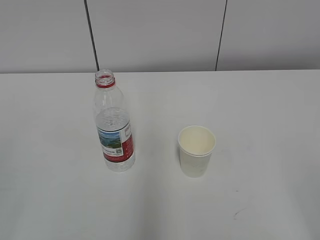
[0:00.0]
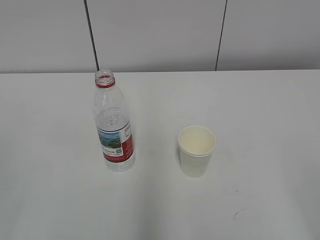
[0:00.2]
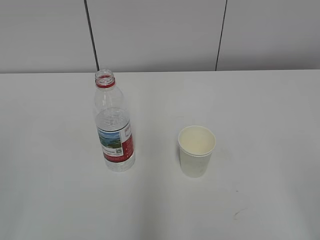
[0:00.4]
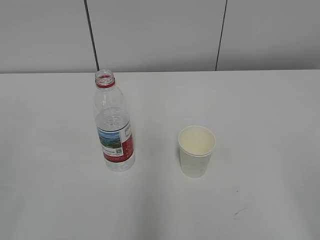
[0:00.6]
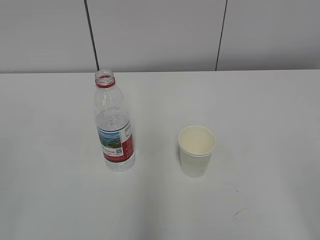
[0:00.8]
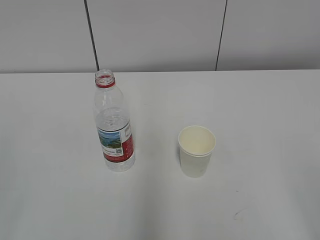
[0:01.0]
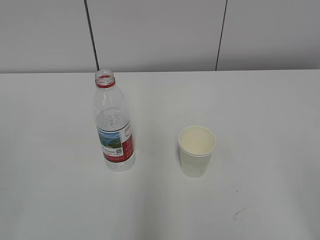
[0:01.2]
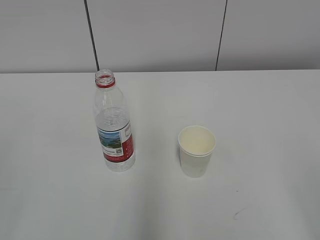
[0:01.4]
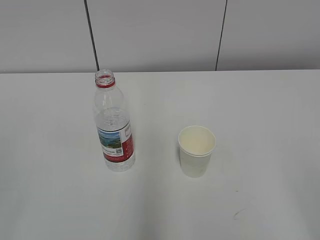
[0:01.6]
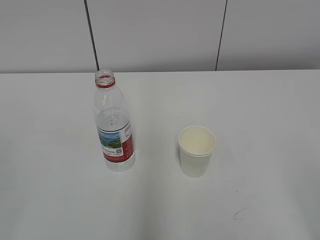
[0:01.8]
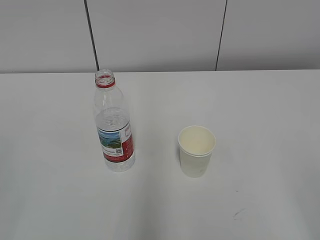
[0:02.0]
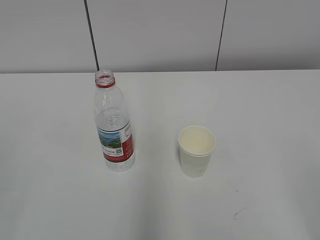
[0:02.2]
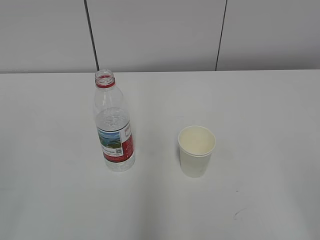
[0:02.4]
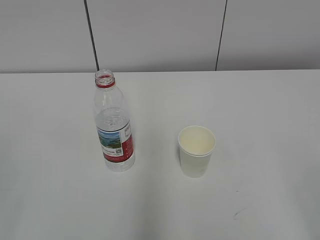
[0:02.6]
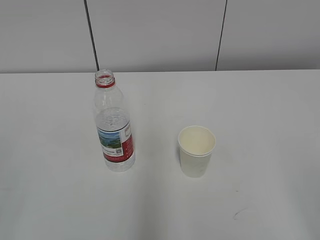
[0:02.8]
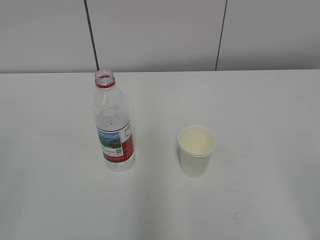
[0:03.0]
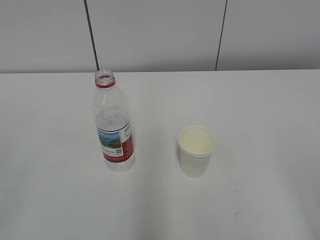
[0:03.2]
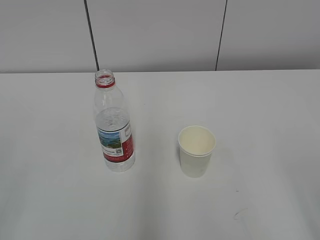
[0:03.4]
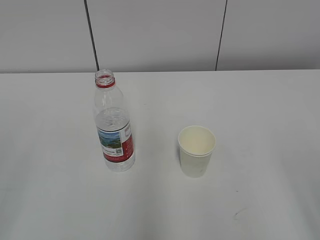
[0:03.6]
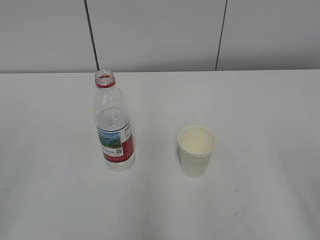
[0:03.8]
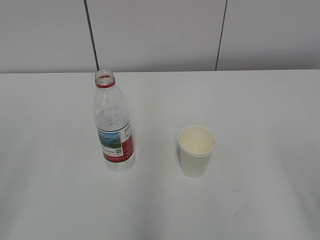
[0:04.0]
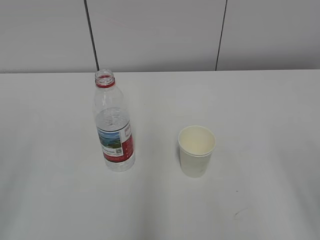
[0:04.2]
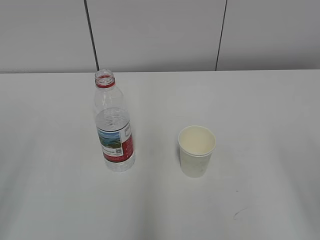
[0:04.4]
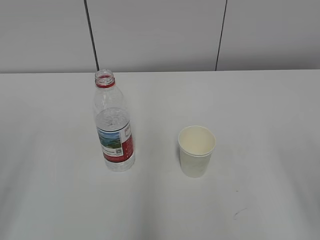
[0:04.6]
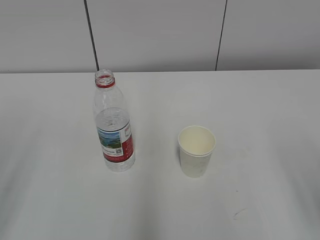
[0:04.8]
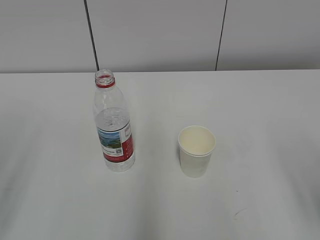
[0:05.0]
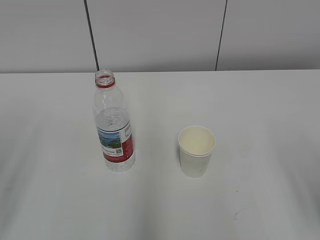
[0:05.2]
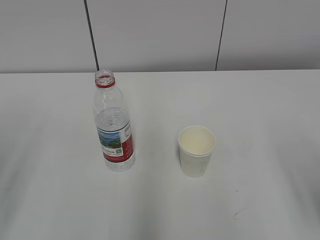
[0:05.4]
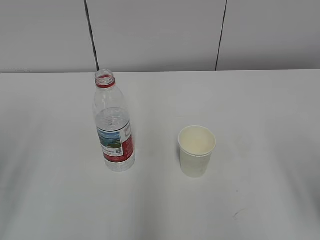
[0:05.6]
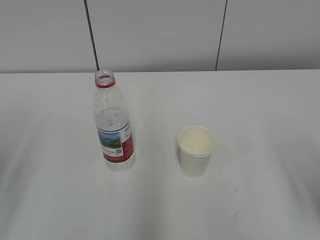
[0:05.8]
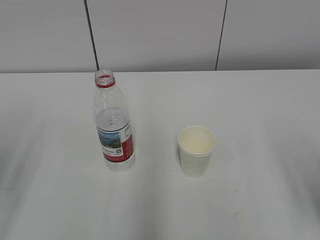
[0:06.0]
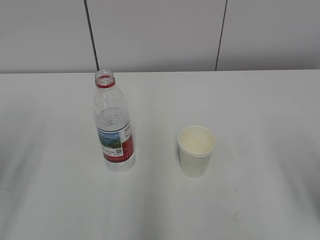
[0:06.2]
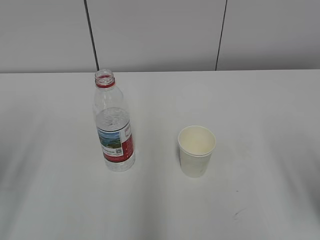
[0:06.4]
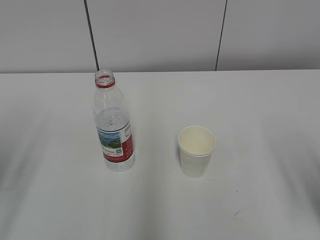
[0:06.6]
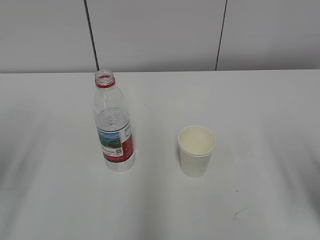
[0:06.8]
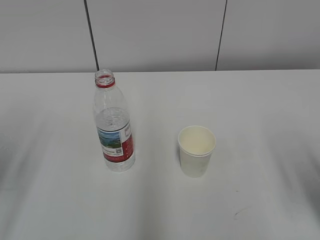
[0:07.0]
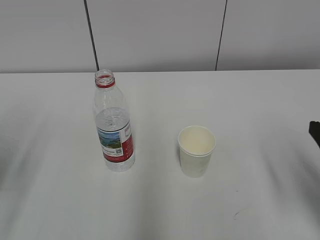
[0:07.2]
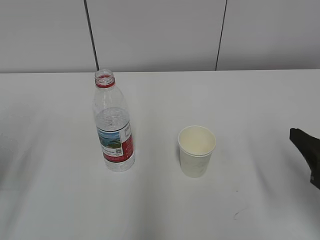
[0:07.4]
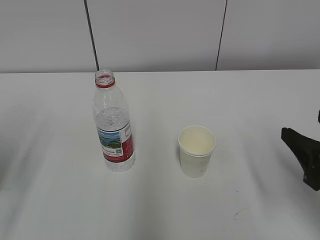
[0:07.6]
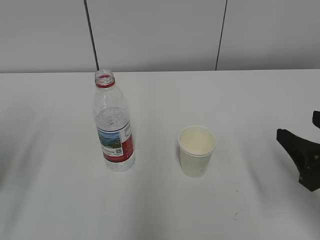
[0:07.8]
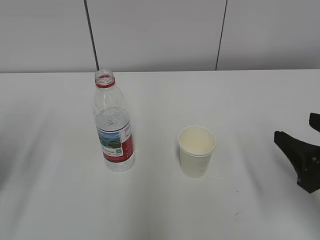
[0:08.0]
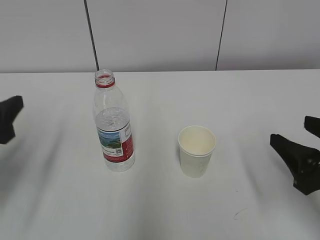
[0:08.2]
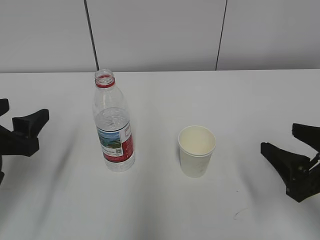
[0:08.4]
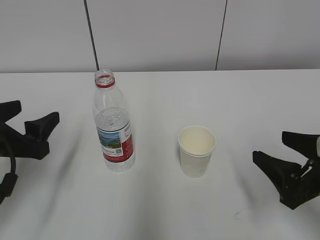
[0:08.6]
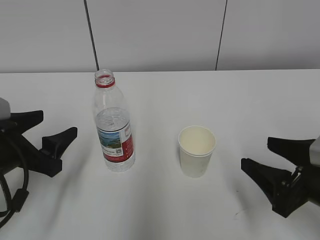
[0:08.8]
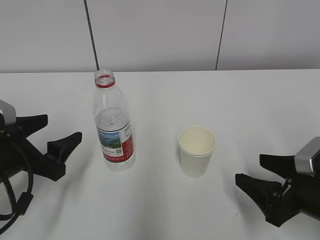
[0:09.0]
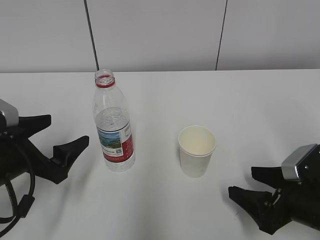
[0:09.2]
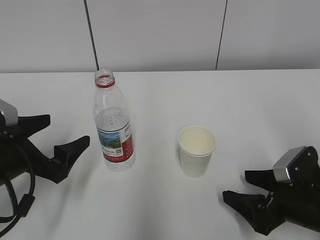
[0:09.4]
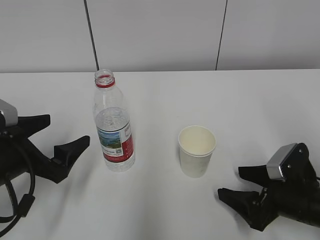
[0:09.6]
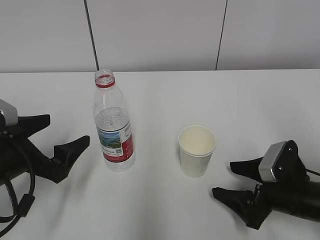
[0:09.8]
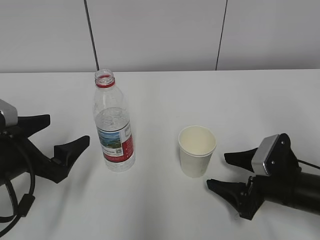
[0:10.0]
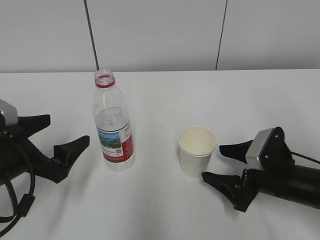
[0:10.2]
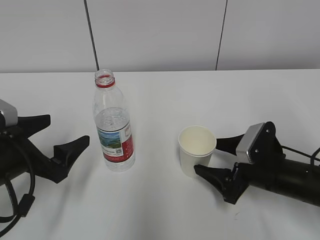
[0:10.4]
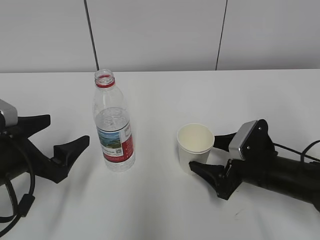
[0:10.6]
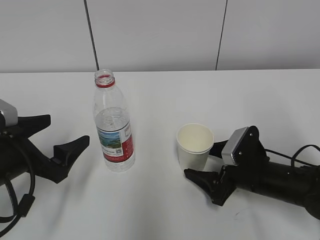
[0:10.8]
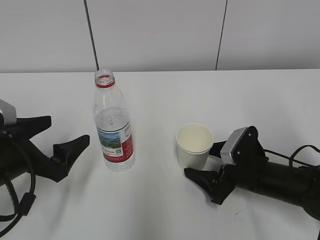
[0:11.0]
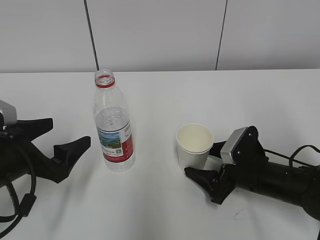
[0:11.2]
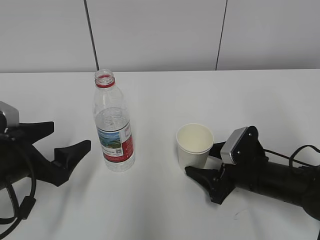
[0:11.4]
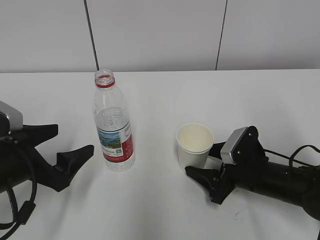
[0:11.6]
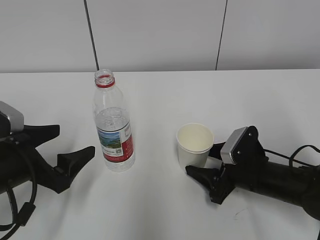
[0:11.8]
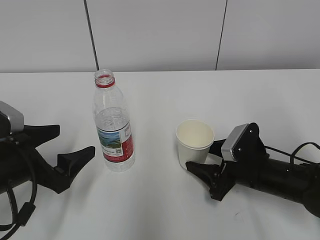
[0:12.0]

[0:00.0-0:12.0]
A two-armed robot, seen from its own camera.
Step, 0:00.0 to 0:09.8: Grab the paper cup with the right hand.
0:06.0 to 0:07.6: The right gripper travels forward by some 5 cm.
0:07.6 to 0:09.0: The left gripper goes roughly 10 cm downward and to the right. The right gripper is displaced downward by some 5 cm.
0:09.0 to 0:10.4: The right gripper moves forward, some 10 cm.
0:10.4 to 0:12.0: The right gripper closes up.

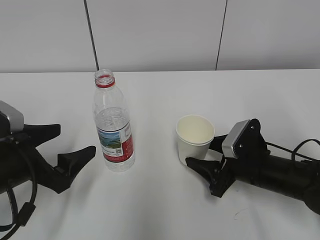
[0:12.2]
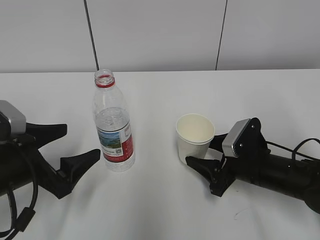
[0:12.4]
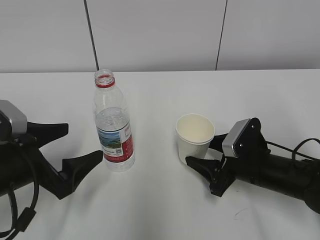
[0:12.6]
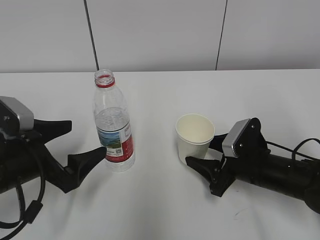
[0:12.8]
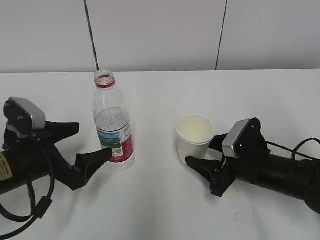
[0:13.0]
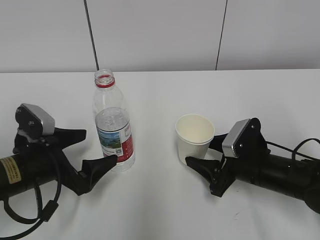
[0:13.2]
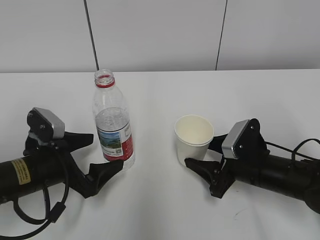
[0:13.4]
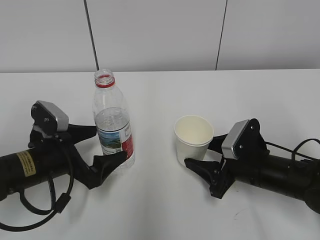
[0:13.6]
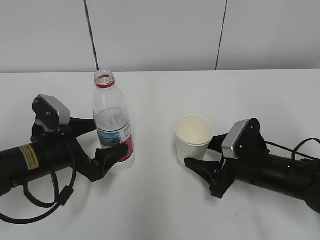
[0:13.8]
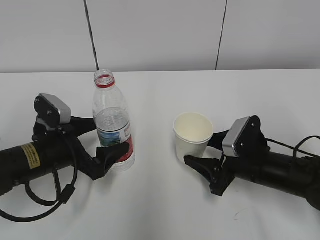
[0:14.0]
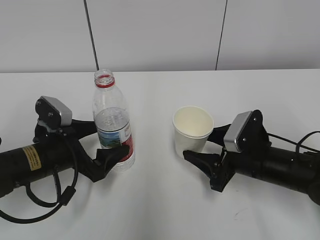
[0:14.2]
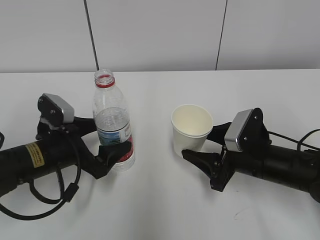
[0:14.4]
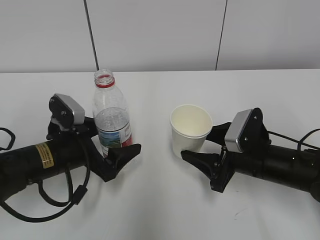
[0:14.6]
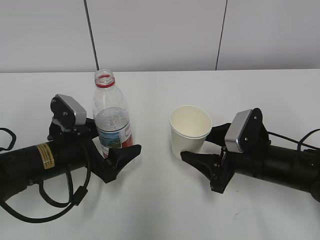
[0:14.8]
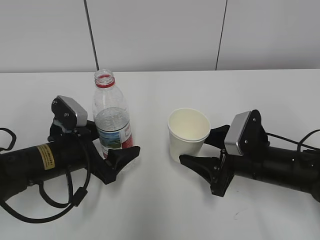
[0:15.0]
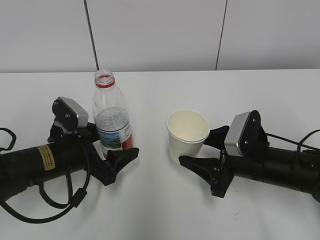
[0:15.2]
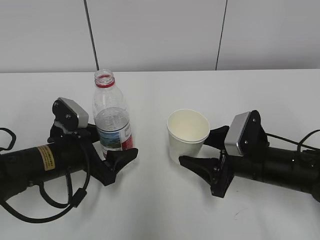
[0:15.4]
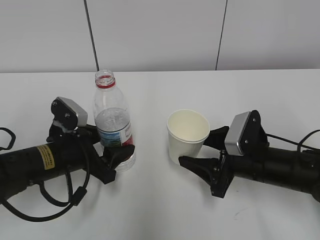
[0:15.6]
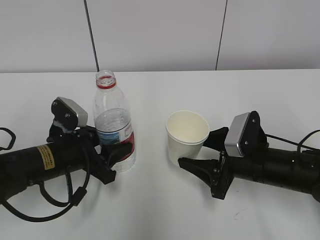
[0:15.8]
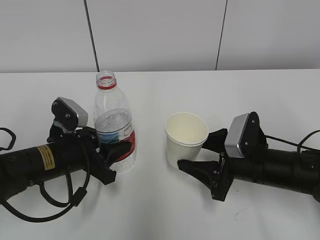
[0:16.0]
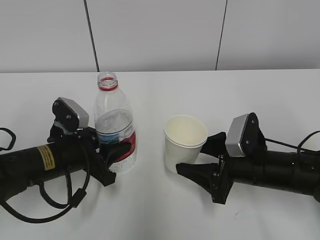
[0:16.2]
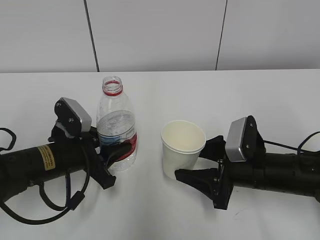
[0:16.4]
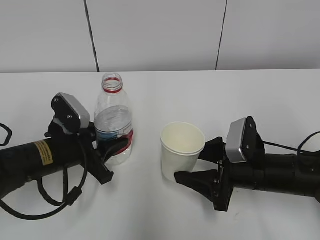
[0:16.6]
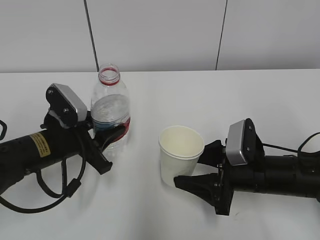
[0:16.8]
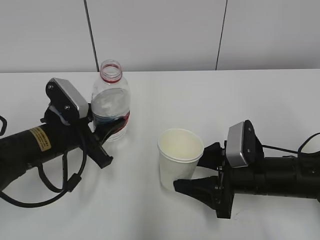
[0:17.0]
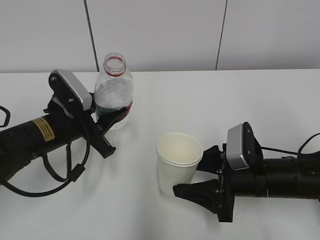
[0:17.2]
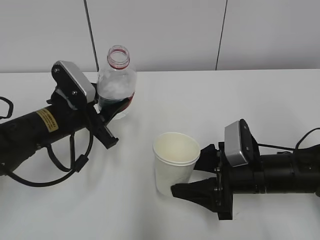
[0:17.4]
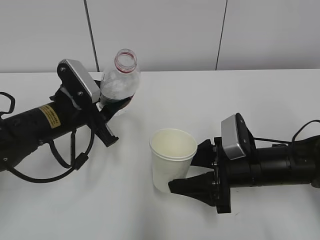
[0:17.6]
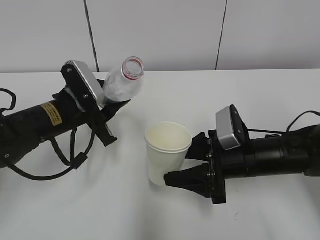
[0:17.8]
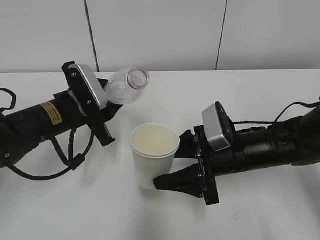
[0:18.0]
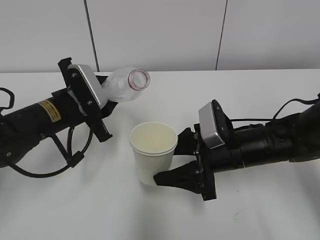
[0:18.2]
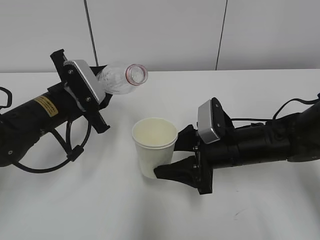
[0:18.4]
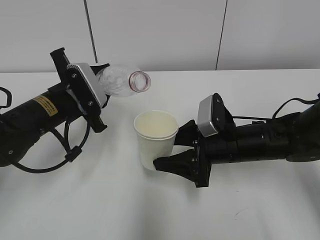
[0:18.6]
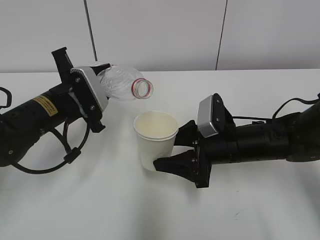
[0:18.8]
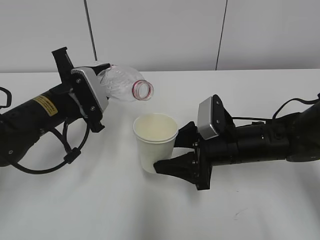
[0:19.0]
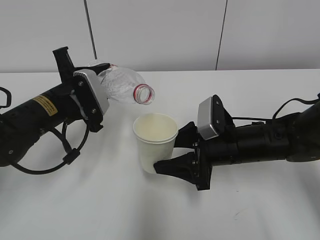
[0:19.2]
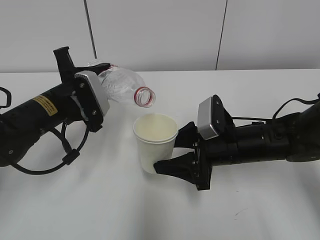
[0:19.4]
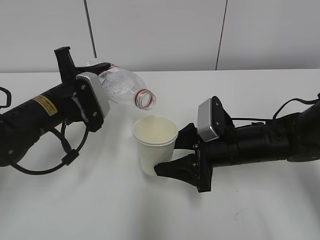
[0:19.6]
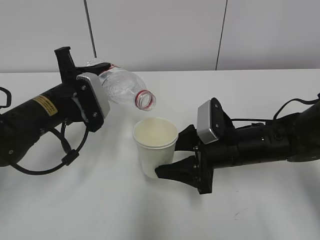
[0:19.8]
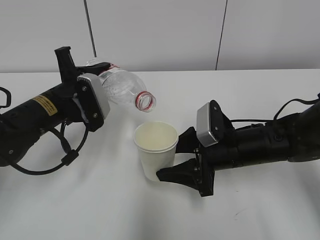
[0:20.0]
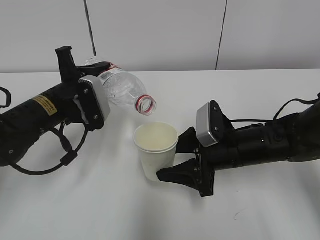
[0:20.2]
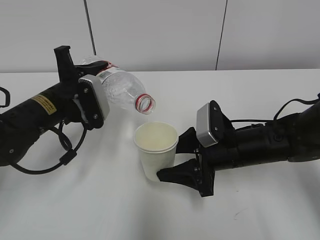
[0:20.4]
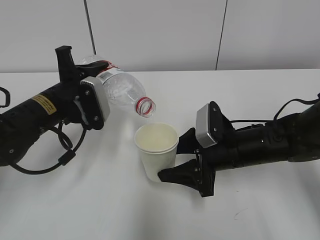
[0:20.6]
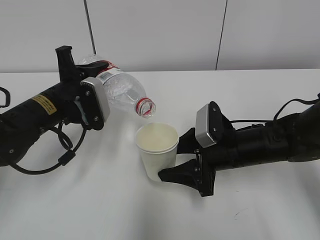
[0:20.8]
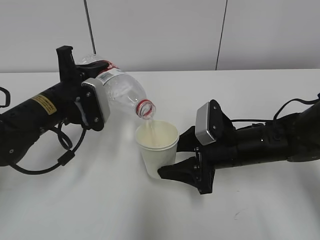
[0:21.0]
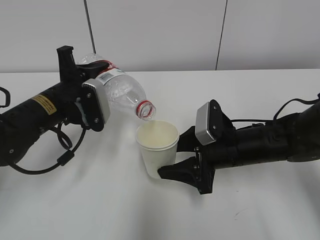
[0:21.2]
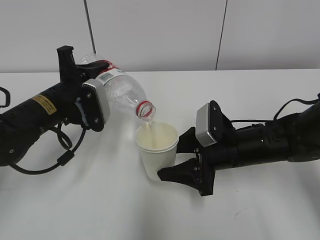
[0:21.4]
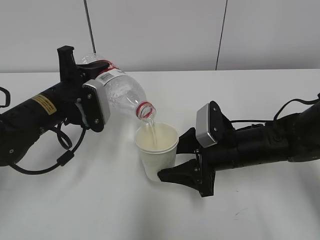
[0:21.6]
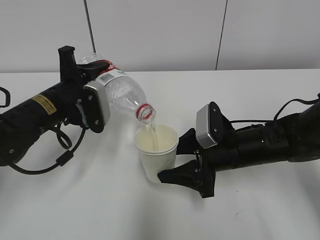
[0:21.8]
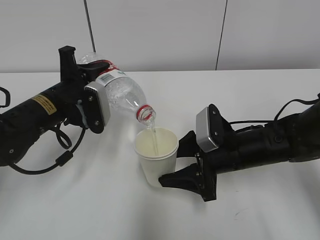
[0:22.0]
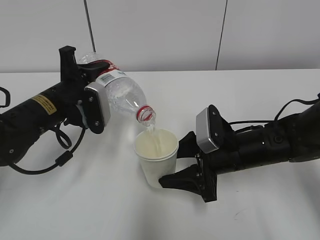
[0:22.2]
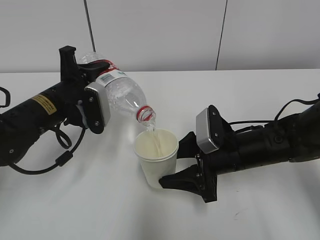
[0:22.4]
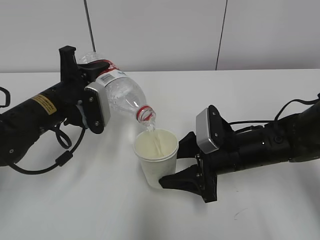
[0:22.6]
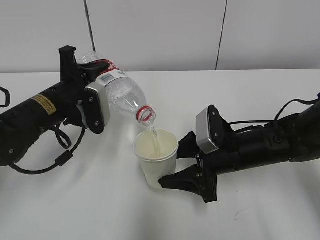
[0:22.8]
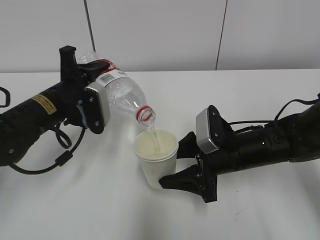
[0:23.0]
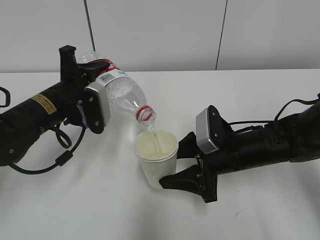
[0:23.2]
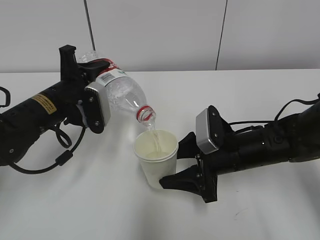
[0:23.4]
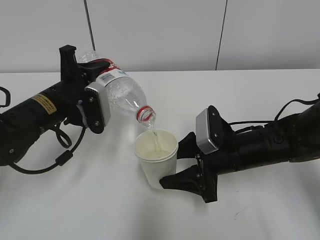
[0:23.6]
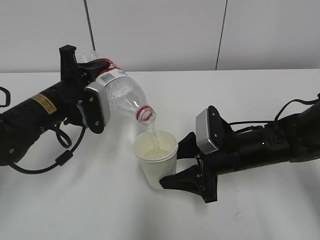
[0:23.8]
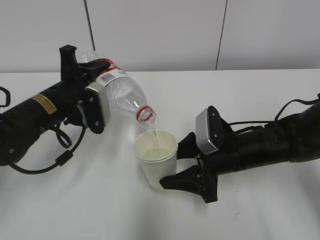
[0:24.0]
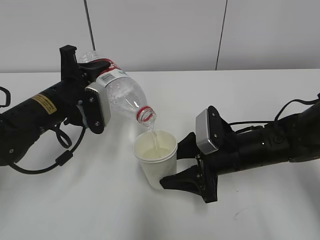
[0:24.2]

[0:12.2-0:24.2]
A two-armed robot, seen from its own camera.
Step, 0:13.2 to 0:17.2: Lift the paper cup with the right hand.
Step, 0:17.4 to 0:21.6: Fill water with the right hand.
Step, 0:17.4 to 0:21.6: Pour water with the left hand.
0:12.2 to 0:13.8: The left gripper is displaced forward by roughly 5 cm.
0:13.8 to 0:15.2: The grippers move only a little.
0:15.2 to 0:16.6: The left gripper closes its fingers.
0:16.6 to 0:18.2: The left gripper moves about 5 cm. The right gripper ends up roughly 5 cm from where it was.
0:19.8 to 0:21.2: There are only small adjustments of the grippers.
0:21.2 to 0:22.6: Neither gripper changes place.
0:22.6 to 0:24.2: Both grippers stay about where they are.
